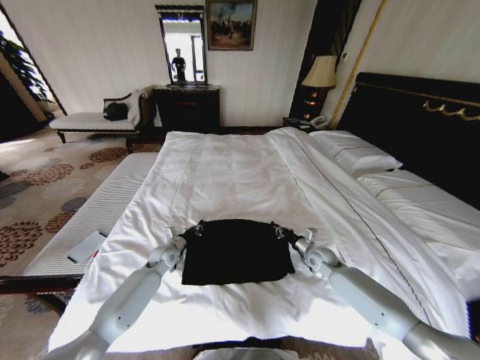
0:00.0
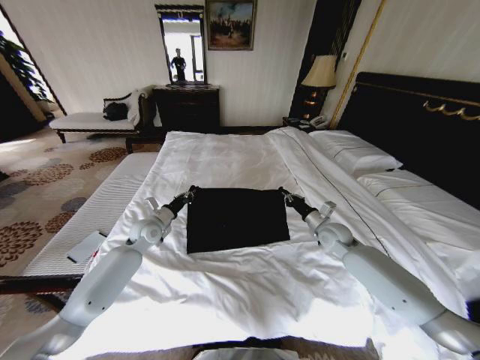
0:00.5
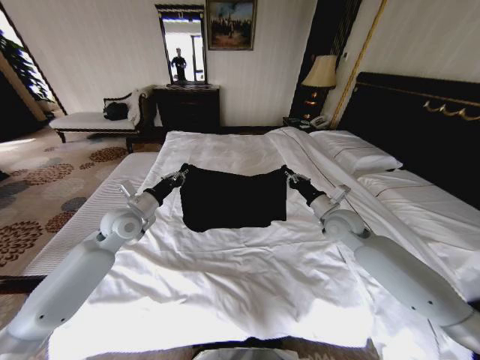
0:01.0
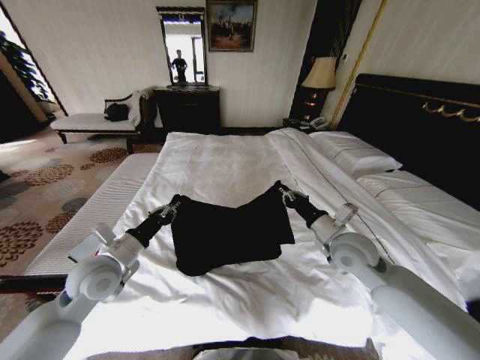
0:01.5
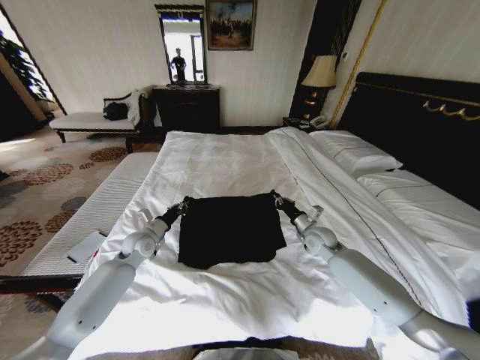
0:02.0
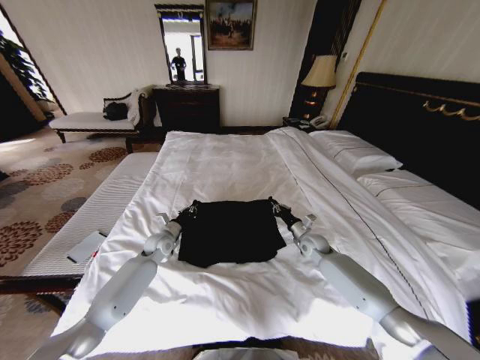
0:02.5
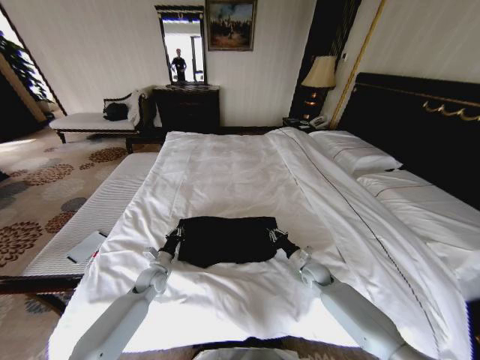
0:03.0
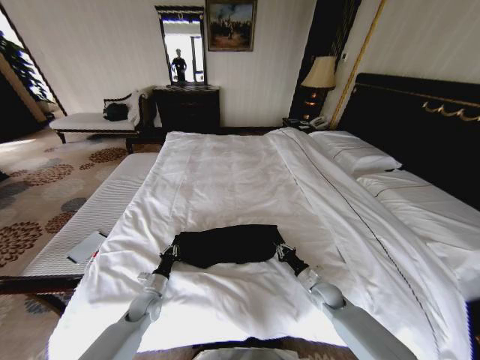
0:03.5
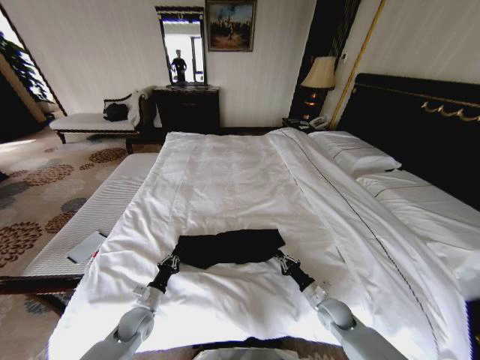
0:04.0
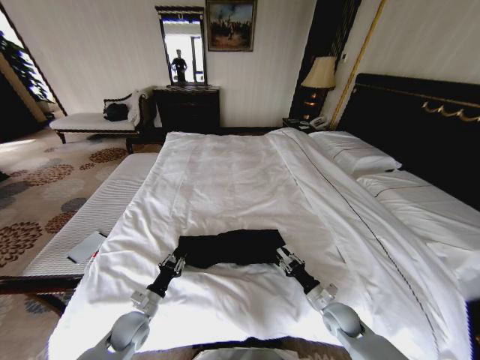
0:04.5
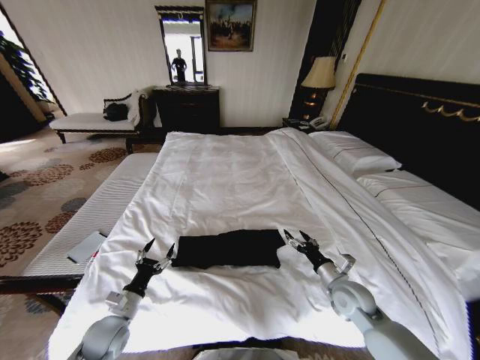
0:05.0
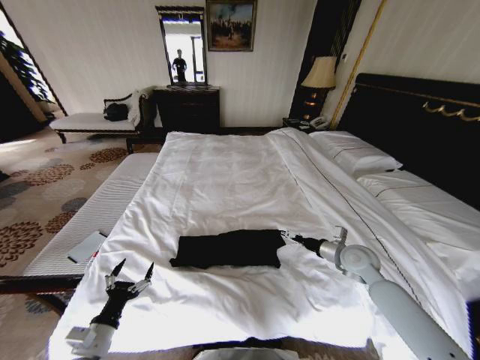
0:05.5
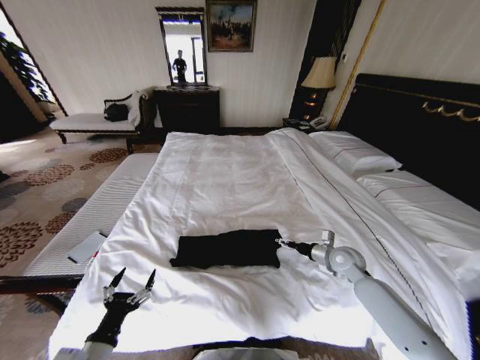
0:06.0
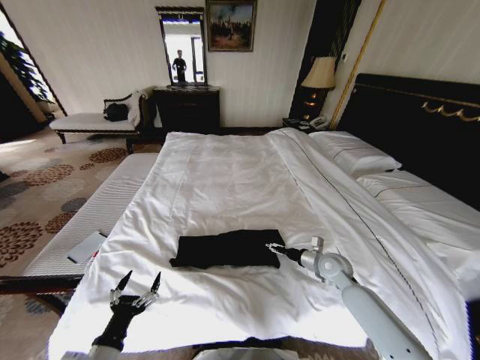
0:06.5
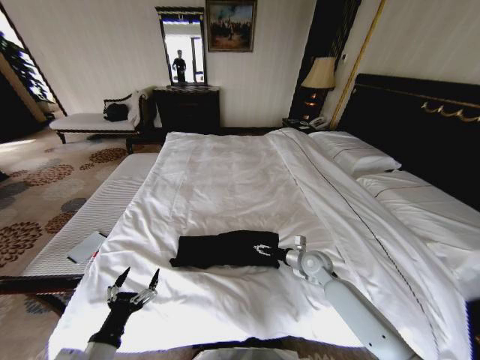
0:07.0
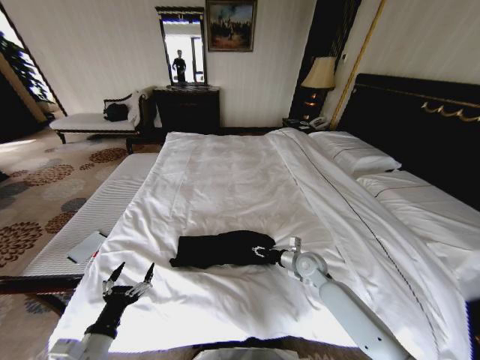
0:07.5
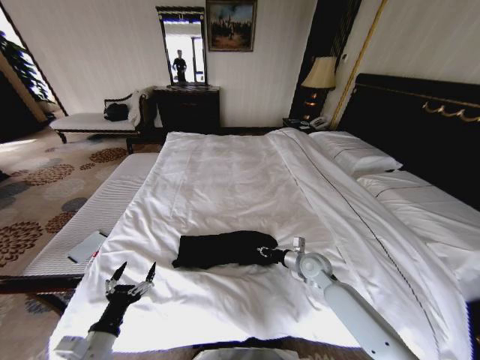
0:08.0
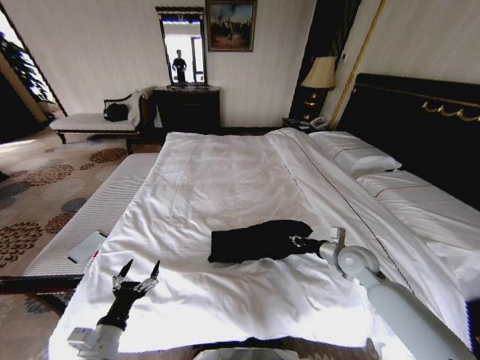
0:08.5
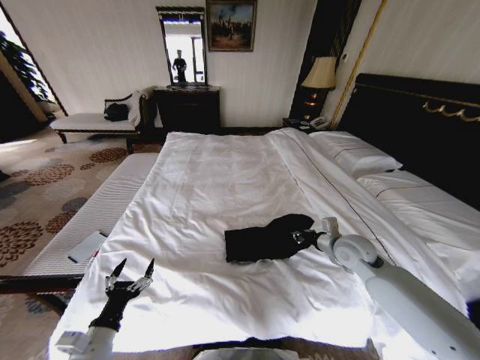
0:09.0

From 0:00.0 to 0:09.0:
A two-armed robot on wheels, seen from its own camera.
Task of the whole recording: Fold the clothes on the bed.
From 0:00.0 to 0:02.0: Both grippers move upward, approximately 10 cm.
From 0:02.0 to 0:04.5: The grippers both shift backward and downward by roughly 25 cm.
From 0:04.5 to 0:07.0: The right gripper moves forward and upward, approximately 15 cm, and opens. Meanwhile the left gripper is displaced backward and upward by about 20 cm, and opens its fingers.
From 0:07.0 to 0:09.0: The right gripper travels upward and to the right by approximately 15 cm, and closes its fingers.

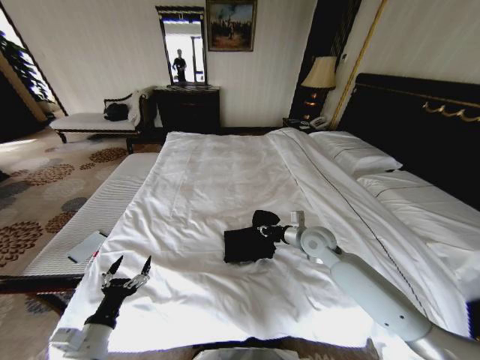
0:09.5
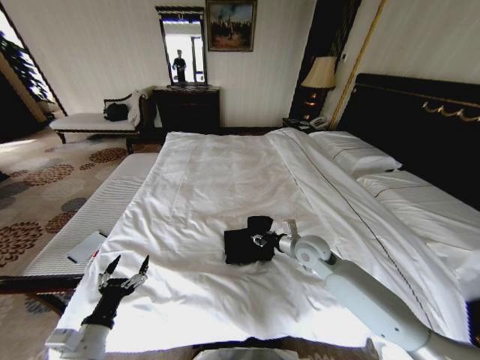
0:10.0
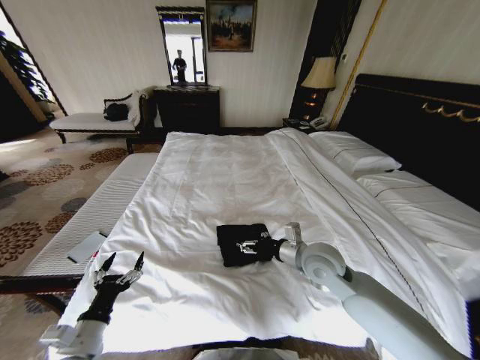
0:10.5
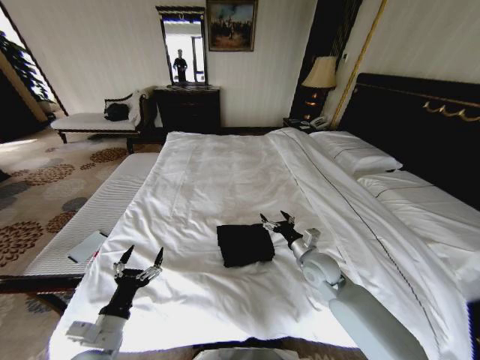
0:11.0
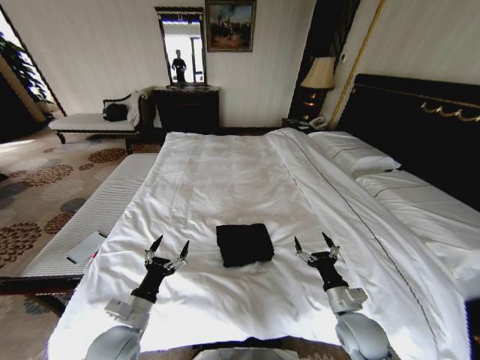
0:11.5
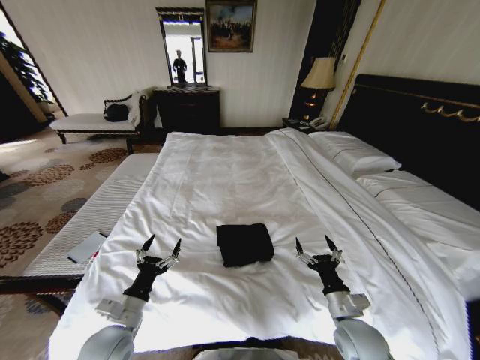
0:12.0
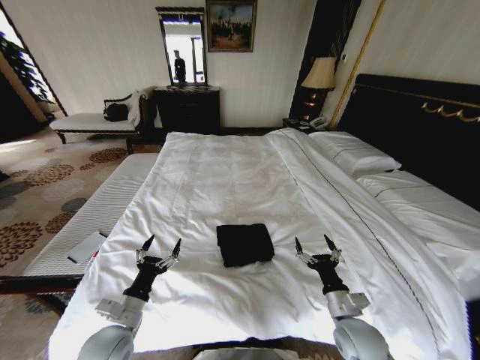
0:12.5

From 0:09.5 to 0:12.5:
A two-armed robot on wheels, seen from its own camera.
Task of the whole recording: Fold the clothes on the bed.
From 0:09.5 to 0:11.0: The right gripper travels backward and downward by some 10 cm, and opens up.
From 0:11.0 to 0:12.5: The right gripper heads backward, covering roughly 15 cm. The left gripper changes place by roughly 5 cm.

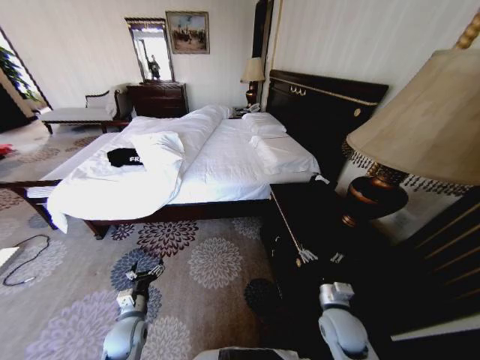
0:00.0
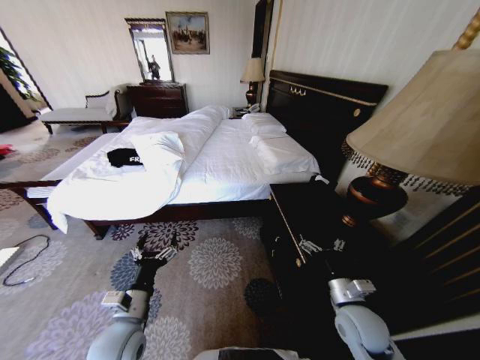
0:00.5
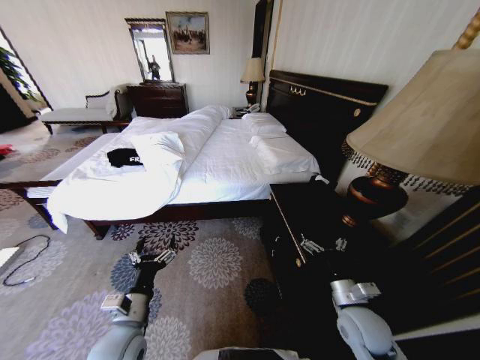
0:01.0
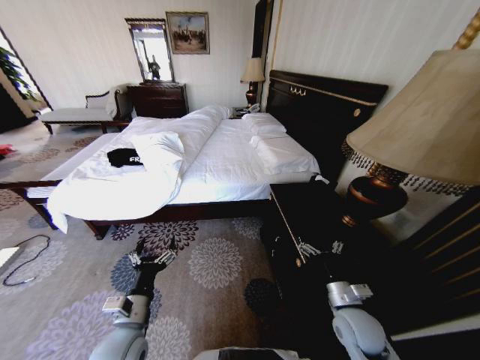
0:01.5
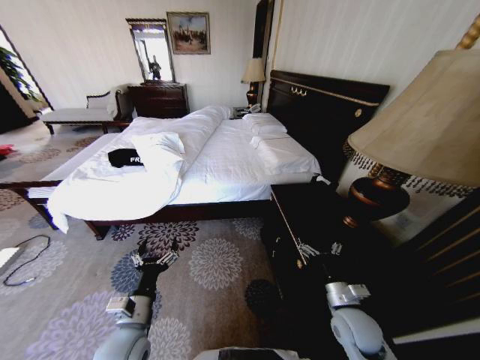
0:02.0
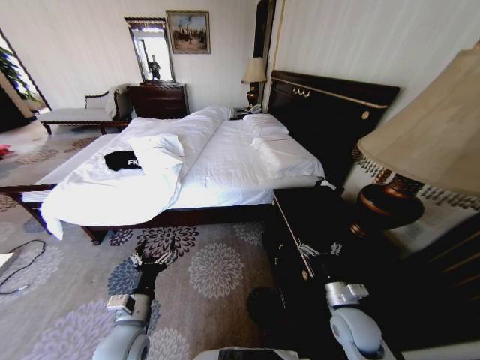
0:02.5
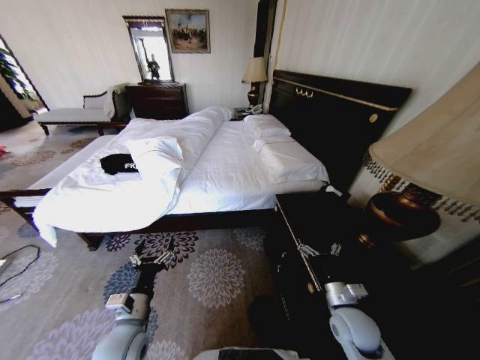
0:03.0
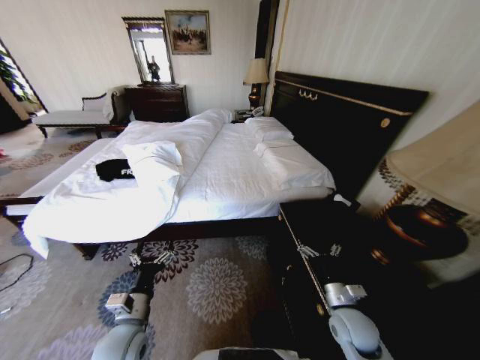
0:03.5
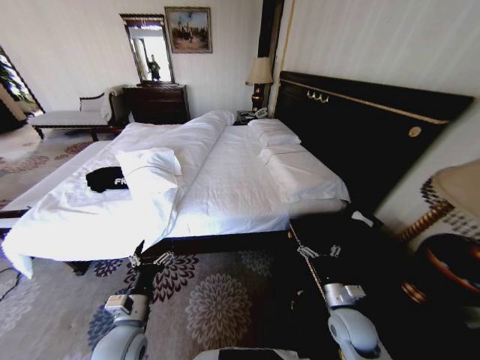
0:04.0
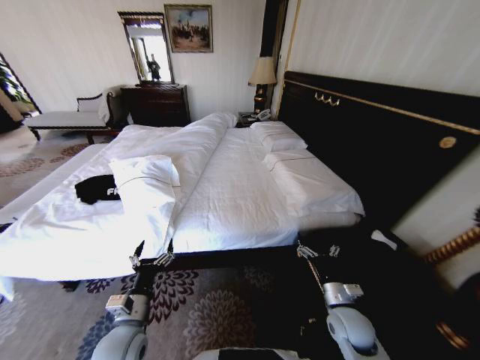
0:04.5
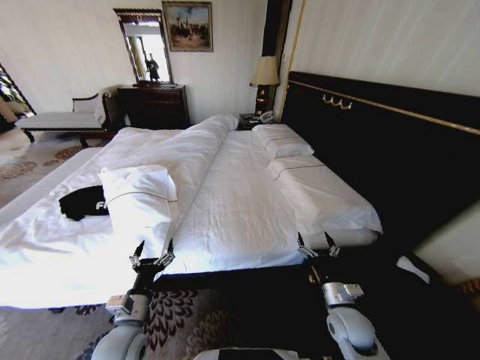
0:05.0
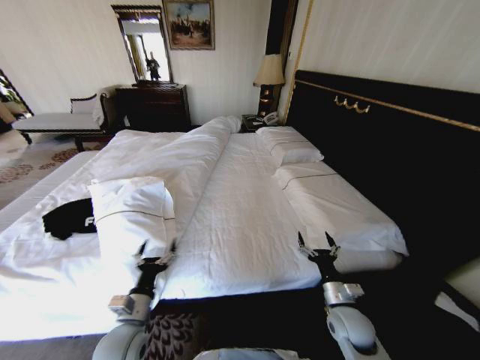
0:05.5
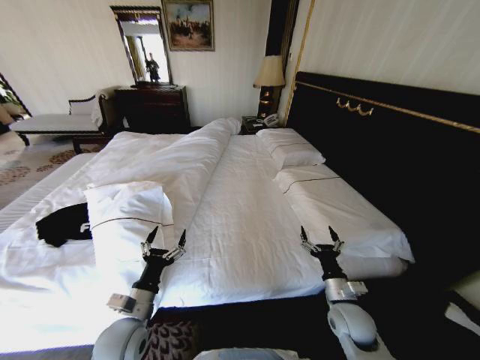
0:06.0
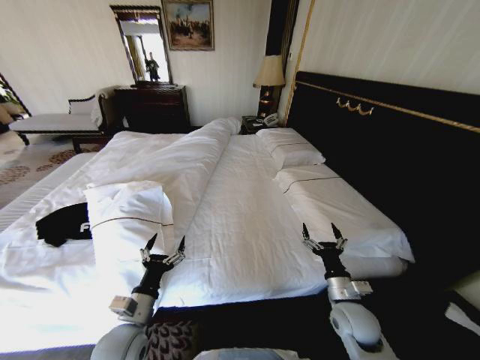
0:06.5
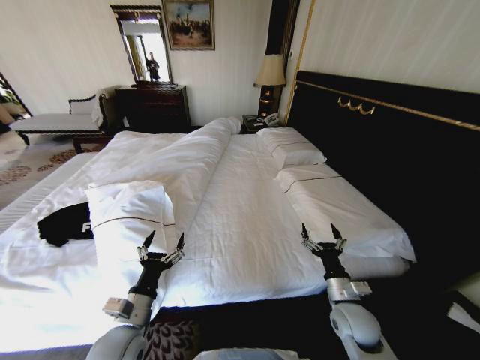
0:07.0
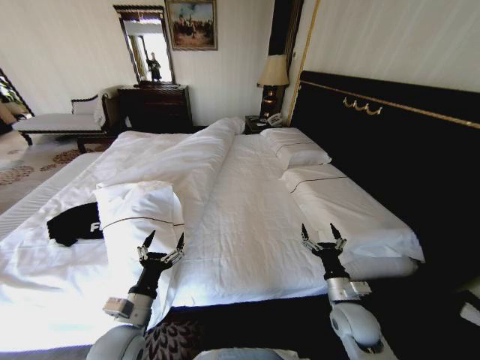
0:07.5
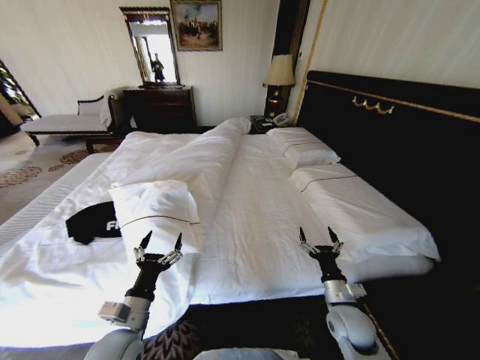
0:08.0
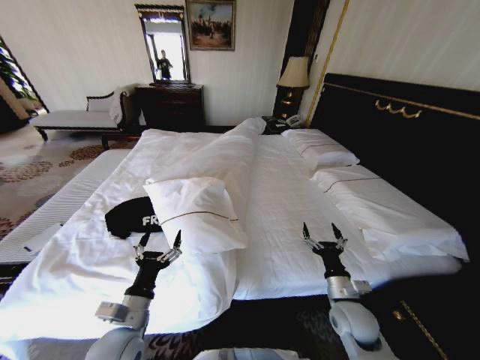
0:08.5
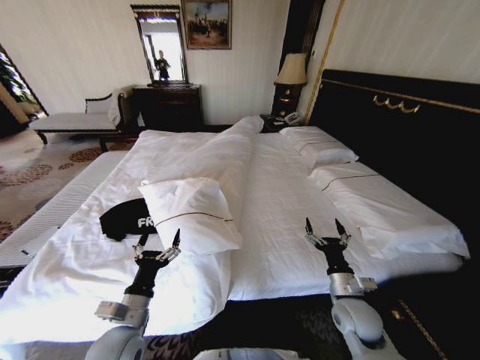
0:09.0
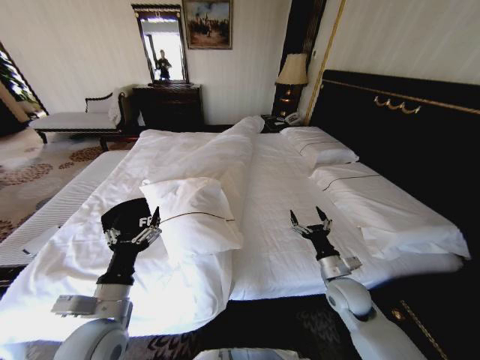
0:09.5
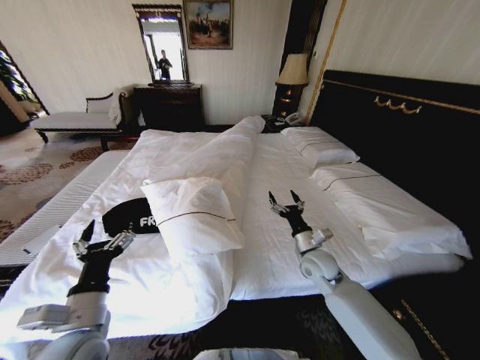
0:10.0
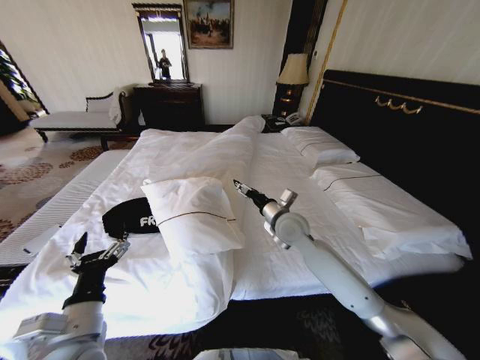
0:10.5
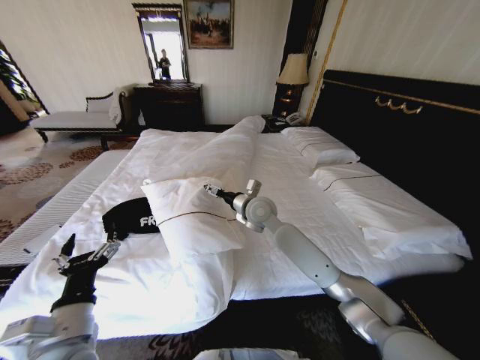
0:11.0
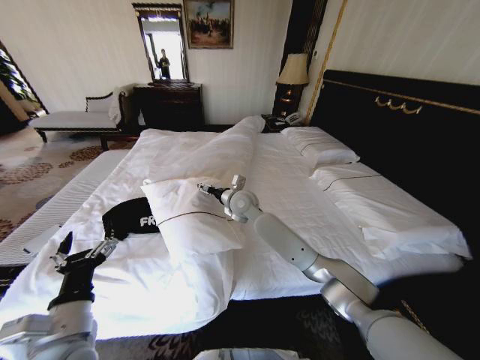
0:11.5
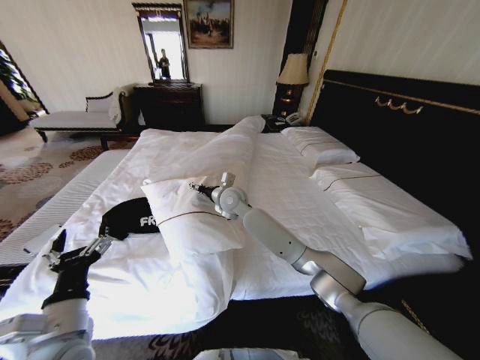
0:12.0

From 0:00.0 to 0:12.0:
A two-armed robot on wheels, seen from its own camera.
Task of the whole recording: Fold the clothes on the bed.
From 0:08.0 to 0:10.0: The left gripper goes some 5 cm upward. Meanwhile the right gripper moves forward and upward, some 15 cm.
From 0:10.0 to 0:12.0: The right gripper heads to the left, forward and upward, covering roughly 30 cm.

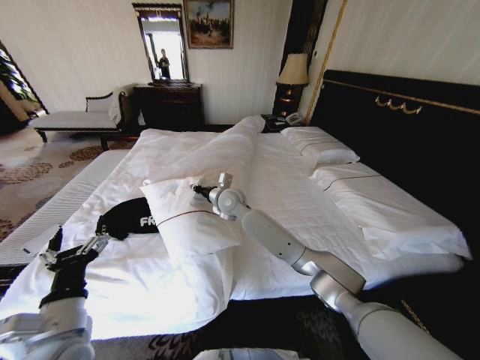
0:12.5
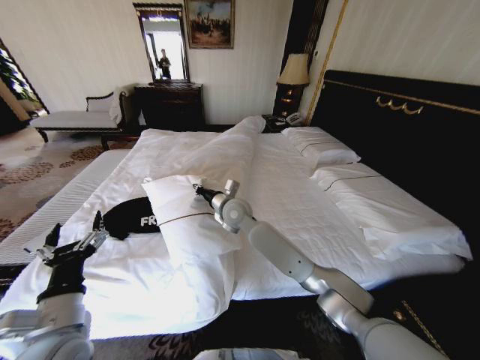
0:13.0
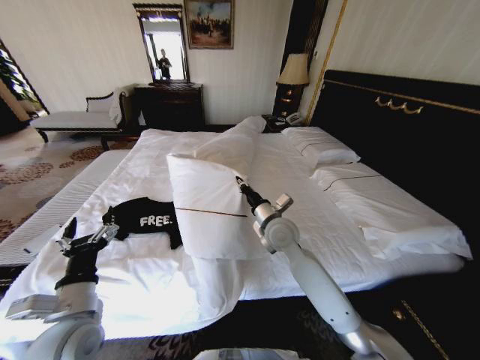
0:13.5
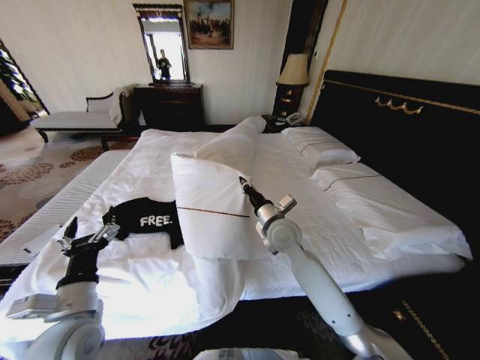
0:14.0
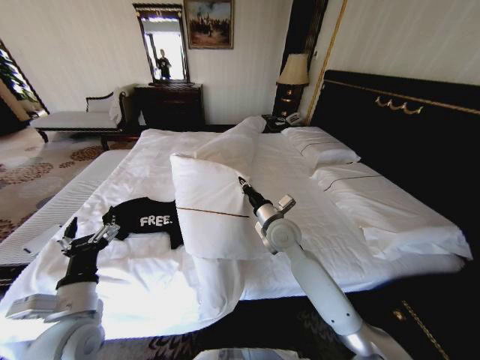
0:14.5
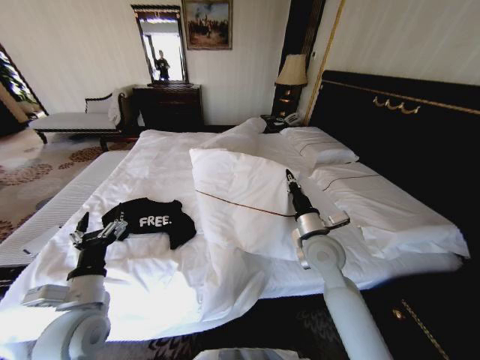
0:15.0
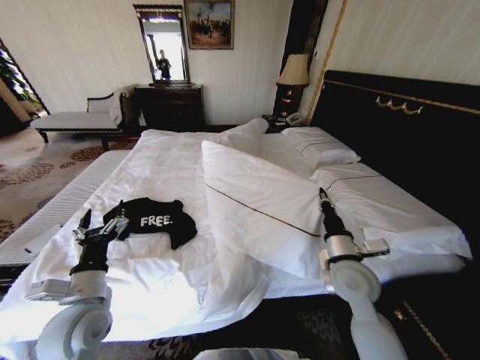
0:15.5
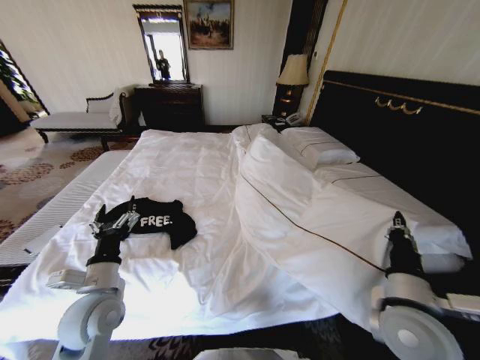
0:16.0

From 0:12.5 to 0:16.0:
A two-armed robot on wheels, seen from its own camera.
Task of the whole recording: Fold the clothes on the bed.
From 0:12.5 to 0:14.5: The right gripper is displaced to the right and backward by approximately 20 cm, and closes up.
From 0:14.5 to 0:16.0: The left gripper shifts by about 5 cm. The right gripper is displaced backward and to the right by about 30 cm.
